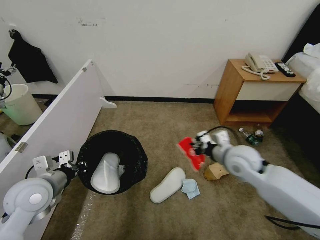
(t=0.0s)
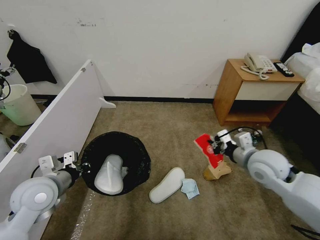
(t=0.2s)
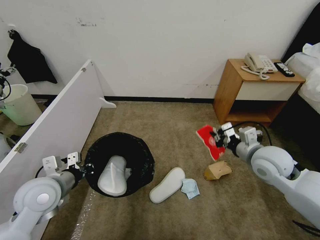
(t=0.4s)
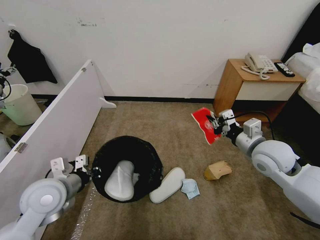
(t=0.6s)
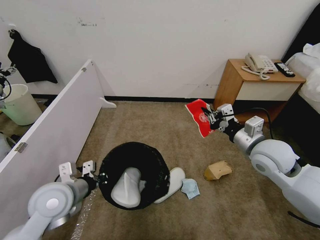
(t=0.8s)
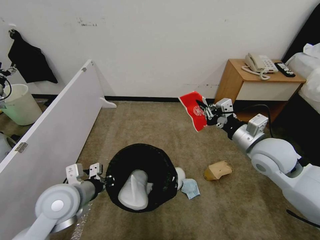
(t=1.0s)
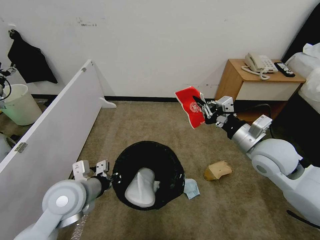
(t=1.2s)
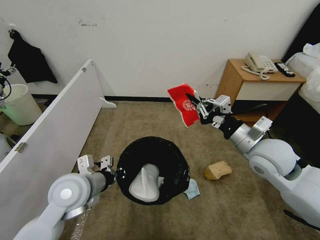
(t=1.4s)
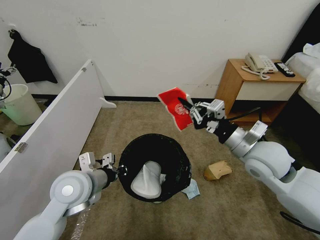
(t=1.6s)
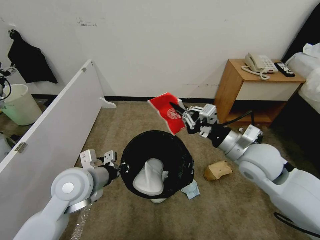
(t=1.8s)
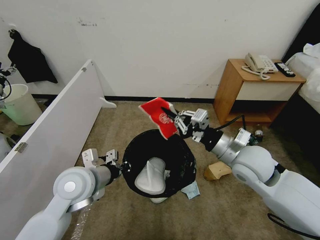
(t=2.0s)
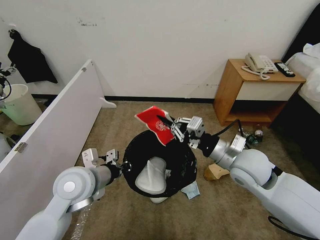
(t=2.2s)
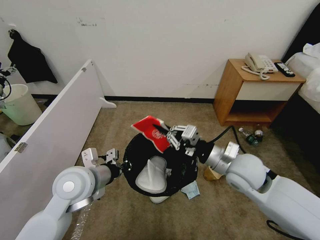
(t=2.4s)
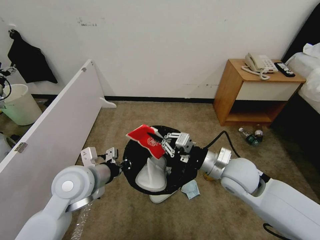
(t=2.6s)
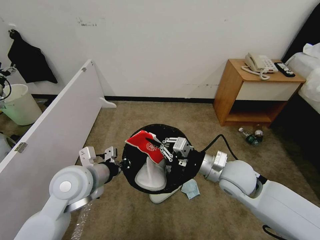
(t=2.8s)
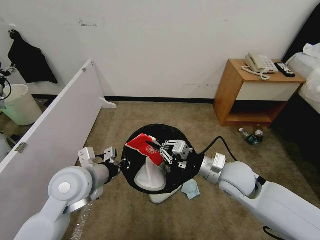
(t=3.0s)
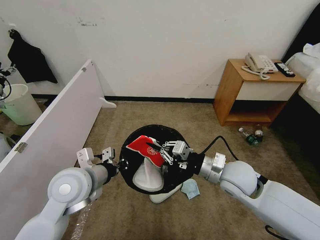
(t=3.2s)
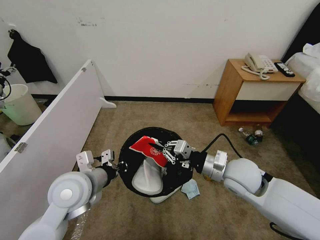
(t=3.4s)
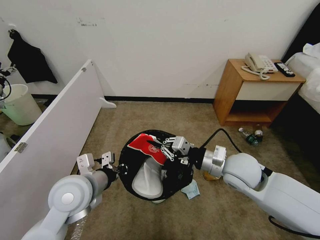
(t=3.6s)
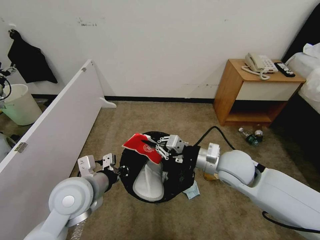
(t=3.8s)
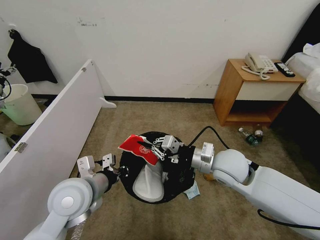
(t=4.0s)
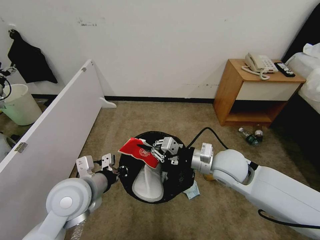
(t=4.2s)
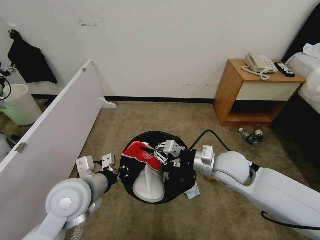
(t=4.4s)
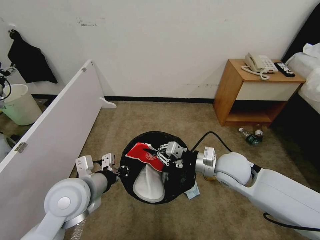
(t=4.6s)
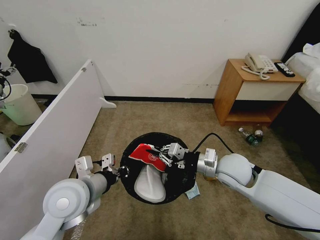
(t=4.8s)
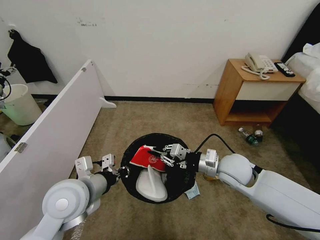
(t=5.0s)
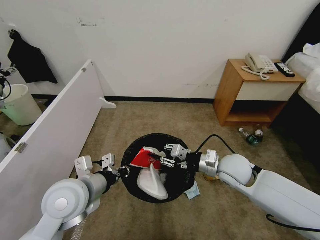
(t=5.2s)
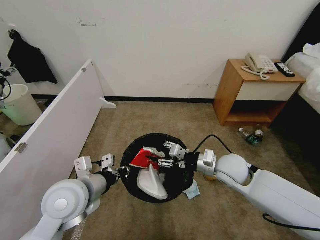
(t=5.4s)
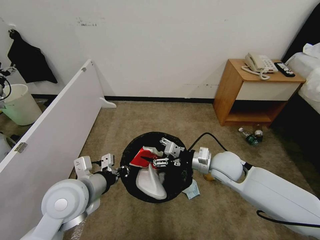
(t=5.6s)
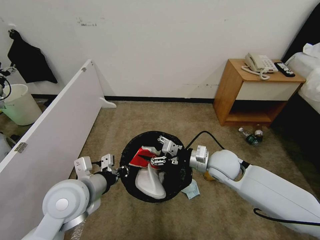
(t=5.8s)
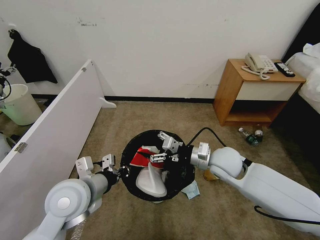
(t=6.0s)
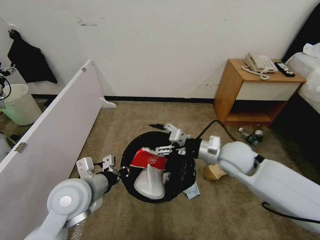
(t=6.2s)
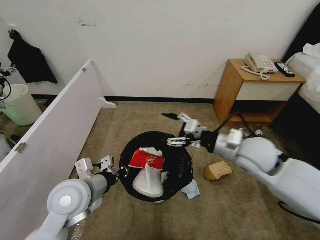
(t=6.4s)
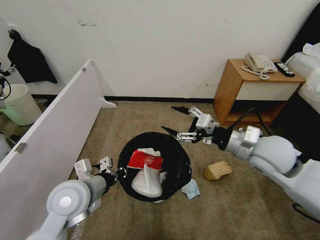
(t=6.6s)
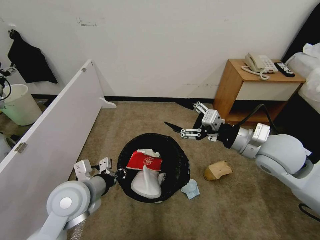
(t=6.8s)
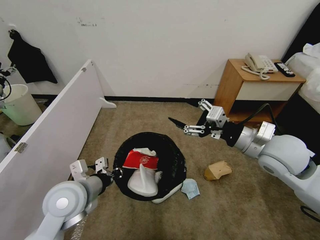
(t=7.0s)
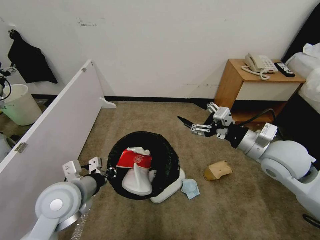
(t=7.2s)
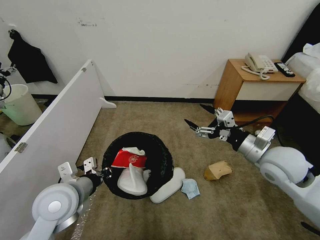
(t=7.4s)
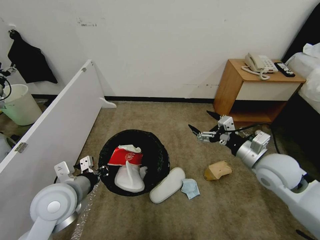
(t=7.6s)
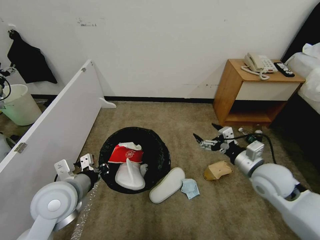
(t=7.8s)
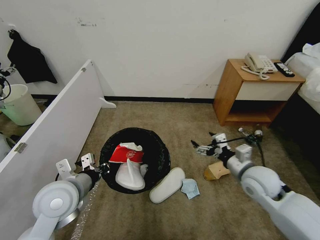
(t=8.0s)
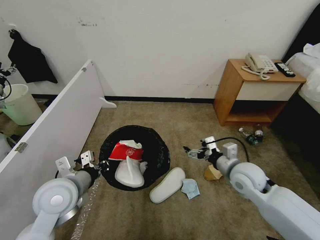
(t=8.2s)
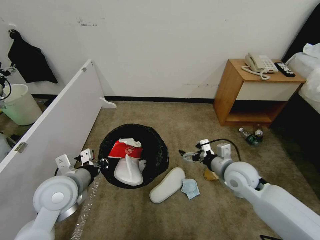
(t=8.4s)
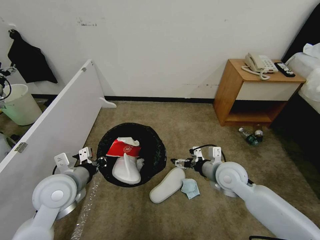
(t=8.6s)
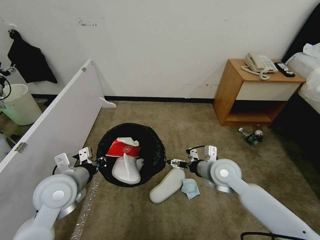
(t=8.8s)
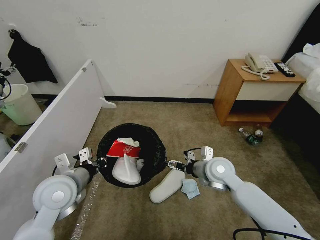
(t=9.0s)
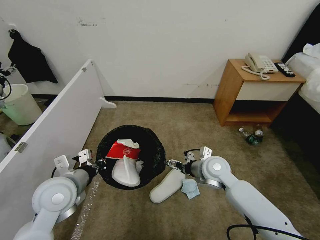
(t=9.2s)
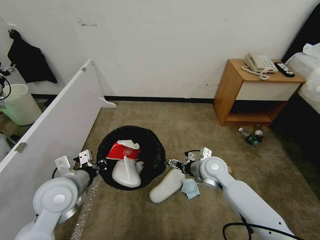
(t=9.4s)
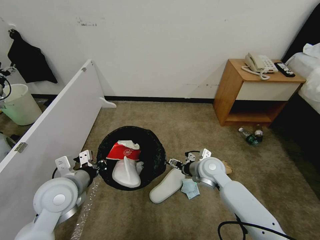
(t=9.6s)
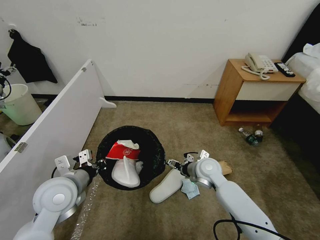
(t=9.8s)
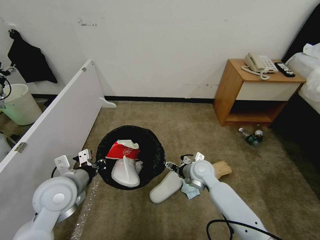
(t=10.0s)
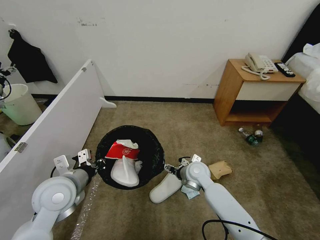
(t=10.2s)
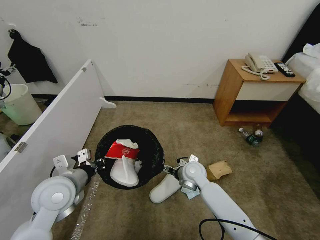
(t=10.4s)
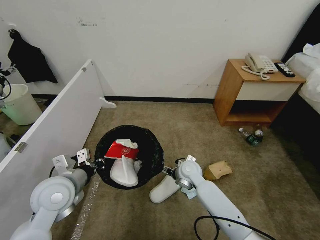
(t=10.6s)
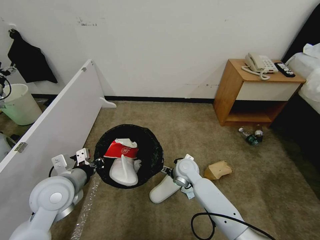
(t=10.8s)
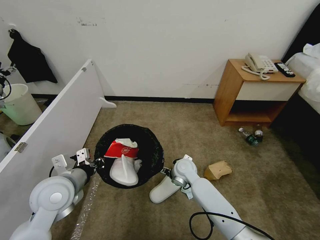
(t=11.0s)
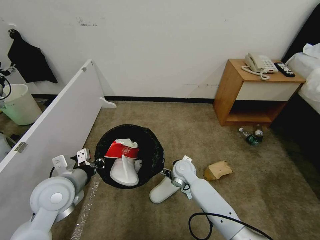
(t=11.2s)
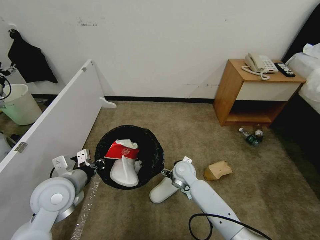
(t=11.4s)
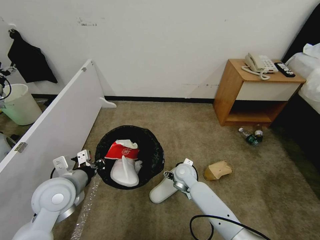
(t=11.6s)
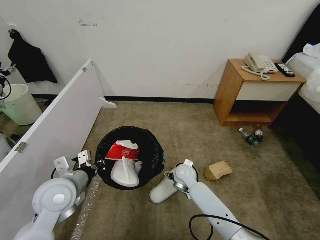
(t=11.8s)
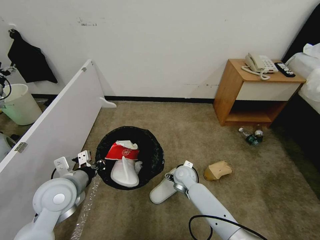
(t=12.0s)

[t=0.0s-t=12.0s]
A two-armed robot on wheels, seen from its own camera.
Task of the whole recording: Pick up the trash bin, then pick up the garbage from the floor and place it into the trash bin.
t=0.0s to t=1.6s: The right gripper goes some 5 cm upward; the left gripper travels to the right by some 10 cm.
t=1.6s to t=3.0s: The right gripper goes about 10 cm downward and to the left.
t=3.0s to t=4.4s: The grippers make only small movements.
t=4.4s to t=6.0s: The right gripper opens up.
t=6.0s to t=7.6s: The right gripper travels to the right and backward by some 10 cm.
t=7.6s to t=9.0s: The right gripper shifts some 15 cm to the left and downward.
t=9.0s to t=10.4s: The right gripper shifts roughly 10 cm downward and to the left.
t=10.4s to t=12.0s: The right gripper heads downward, covering some 5 cm.

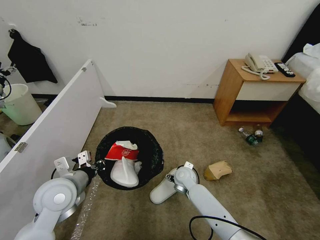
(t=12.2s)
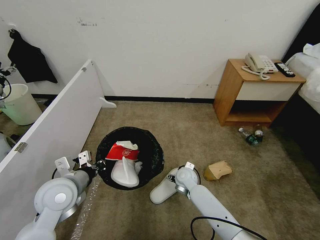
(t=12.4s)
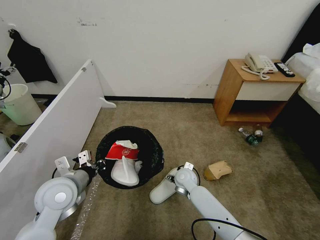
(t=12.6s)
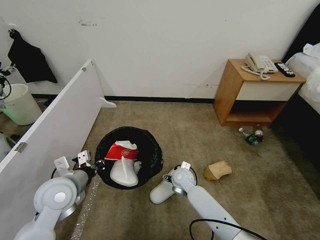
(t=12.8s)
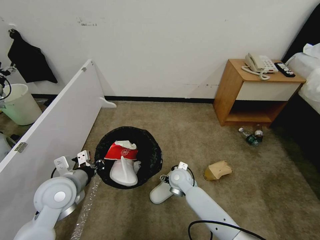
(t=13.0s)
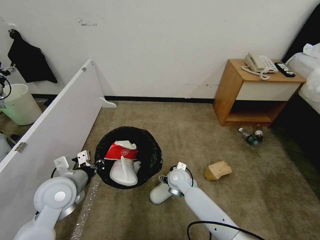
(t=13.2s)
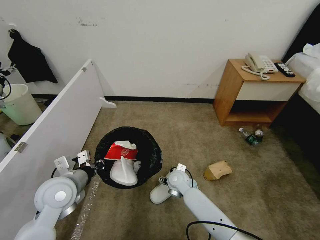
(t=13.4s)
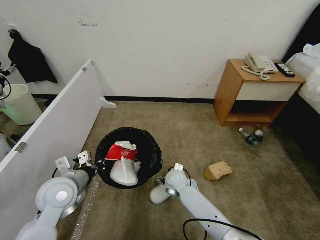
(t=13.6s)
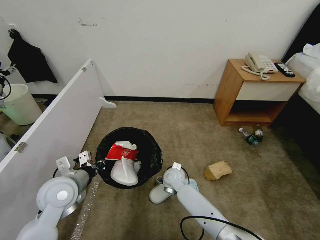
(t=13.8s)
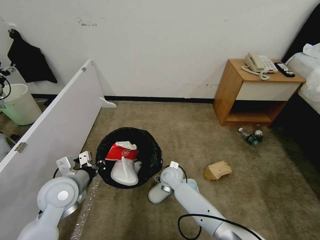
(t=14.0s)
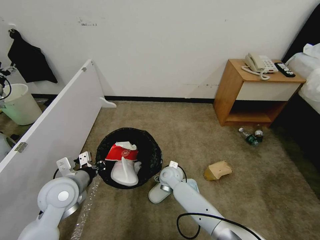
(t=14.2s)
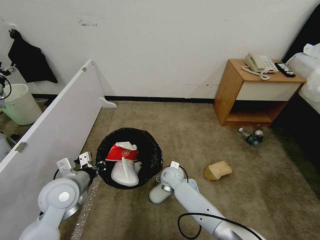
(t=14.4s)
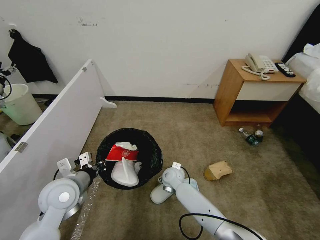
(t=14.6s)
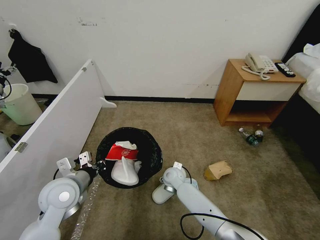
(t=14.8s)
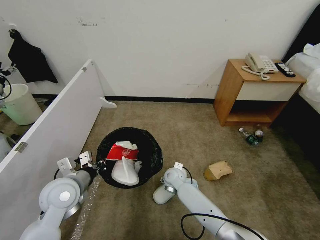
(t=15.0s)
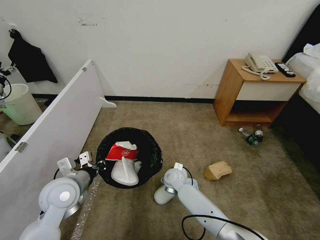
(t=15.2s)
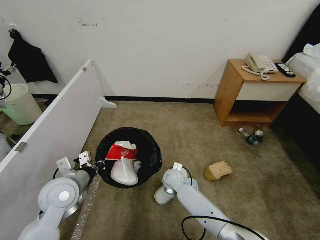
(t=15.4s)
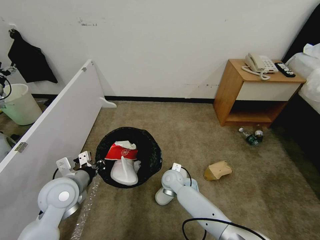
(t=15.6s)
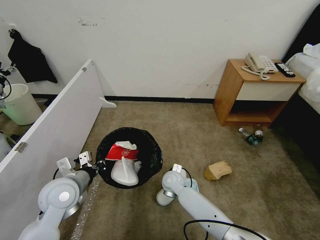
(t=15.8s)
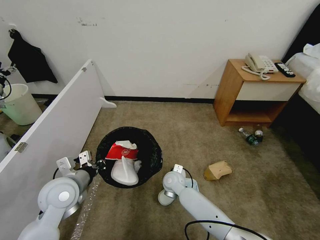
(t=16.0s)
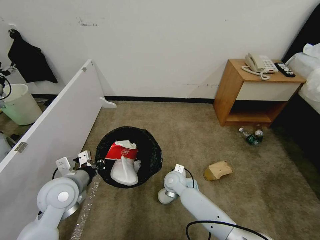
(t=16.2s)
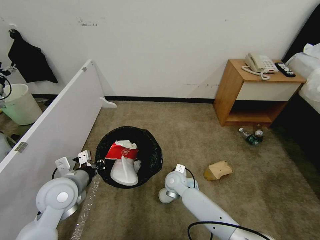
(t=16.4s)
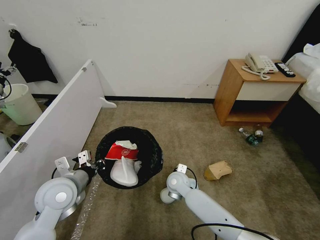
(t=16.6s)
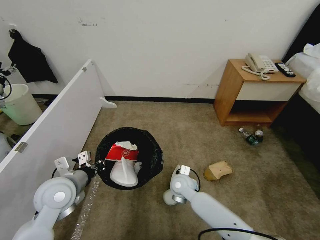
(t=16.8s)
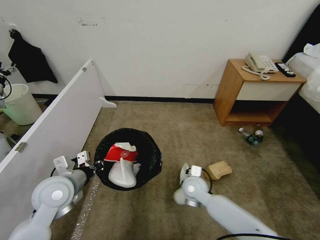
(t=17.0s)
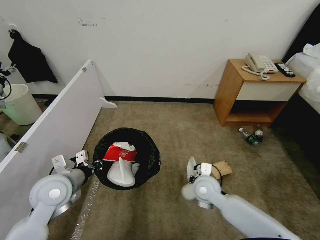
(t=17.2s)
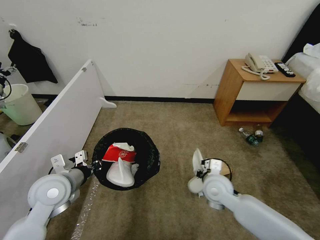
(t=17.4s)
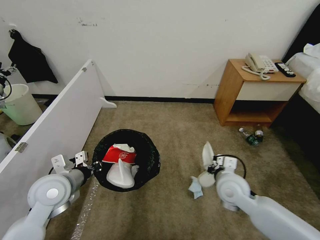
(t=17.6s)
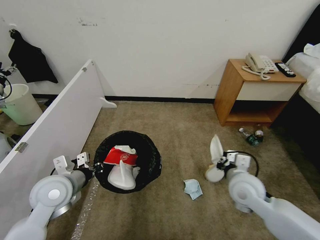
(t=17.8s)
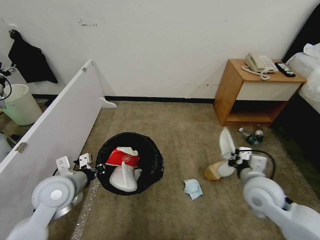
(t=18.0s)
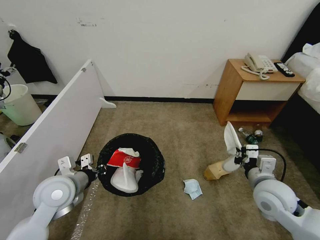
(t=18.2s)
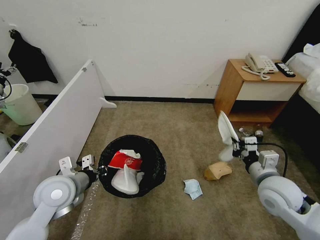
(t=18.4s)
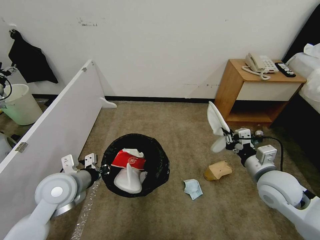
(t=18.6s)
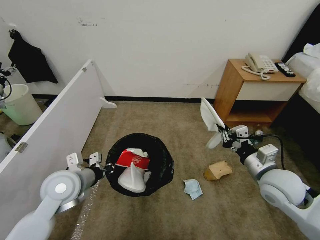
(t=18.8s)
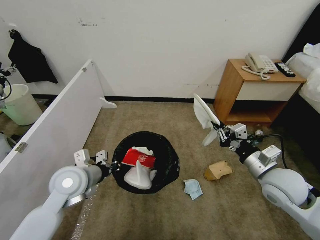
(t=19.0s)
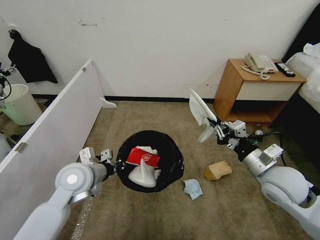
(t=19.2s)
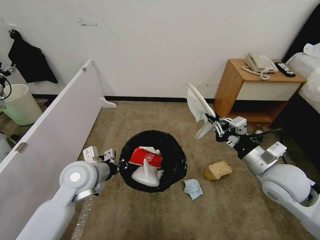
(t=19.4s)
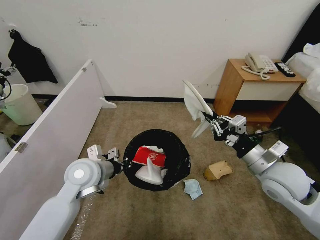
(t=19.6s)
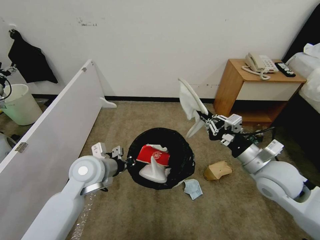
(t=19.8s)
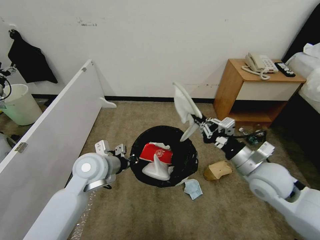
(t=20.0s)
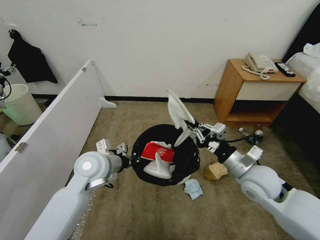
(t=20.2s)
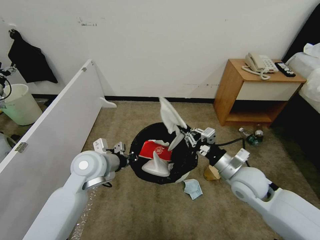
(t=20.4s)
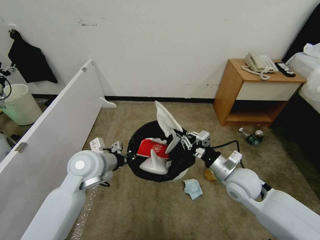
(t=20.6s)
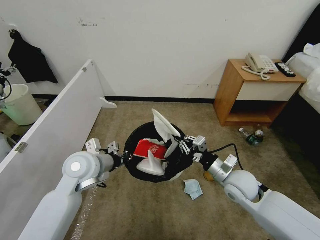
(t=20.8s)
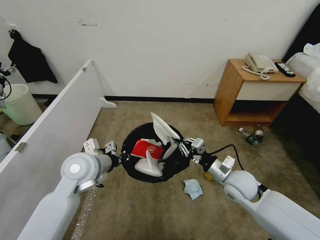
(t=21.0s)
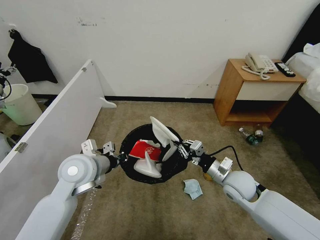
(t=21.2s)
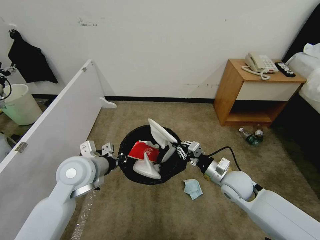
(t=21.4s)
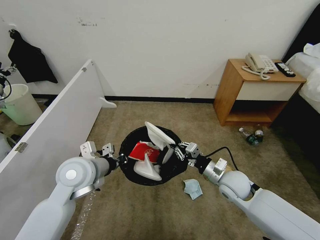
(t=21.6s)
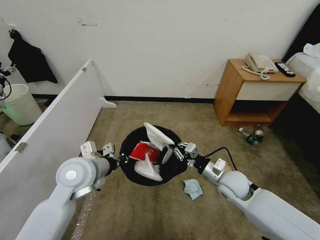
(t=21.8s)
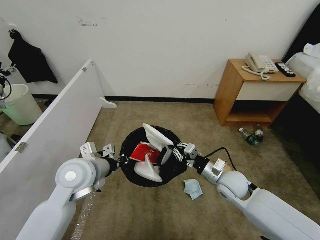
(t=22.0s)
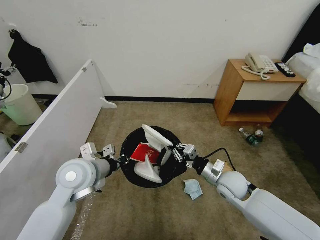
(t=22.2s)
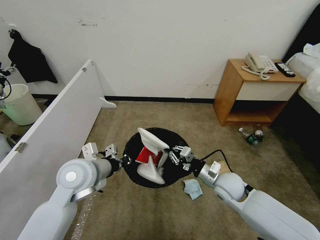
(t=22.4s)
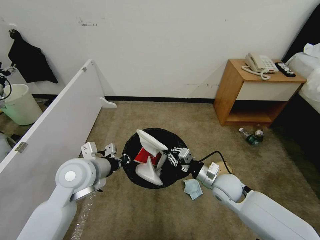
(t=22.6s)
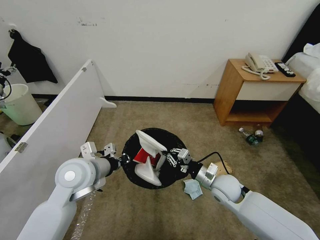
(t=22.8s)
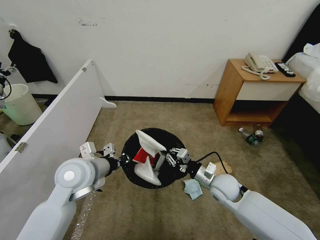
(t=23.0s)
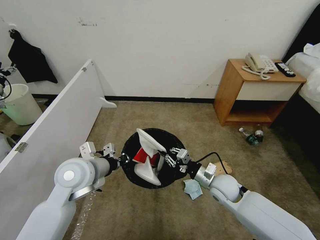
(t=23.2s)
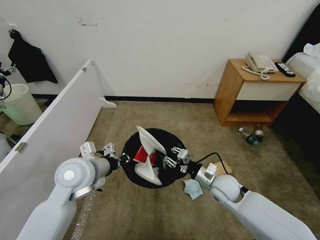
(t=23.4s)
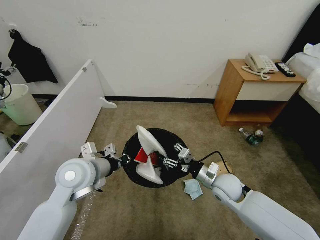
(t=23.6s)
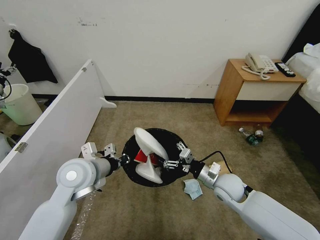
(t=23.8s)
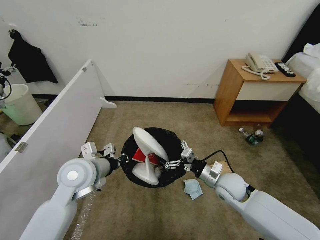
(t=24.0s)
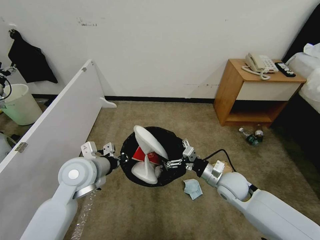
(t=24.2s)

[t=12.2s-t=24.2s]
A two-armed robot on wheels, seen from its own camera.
Task of the whole recording: Pick up the trash bin, then pick up the garbage from the floor and place it into the trash bin.
t=12.2s to t=13.8s: The grippers move only a little.
t=13.8s to t=15.2s: The grippers stay close to where they were, moving slightly.
t=15.2s to t=16.6s: The right gripper closes its fingers.
t=16.6s to t=18.2s: The right gripper shifts approximately 30 cm to the right, upward and backward.
t=18.2s to t=19.8s: The left gripper is displaced to the right by about 5 cm; the right gripper is displaced upward by about 5 cm.
t=19.8s to t=21.2s: The right gripper is displaced downward and to the left by approximately 15 cm.
t=21.2s to t=22.6s: The grippers make only small movements.
t=22.6s to t=24.2s: The right gripper opens its fingers.
